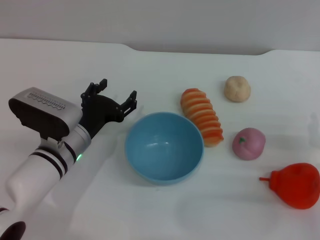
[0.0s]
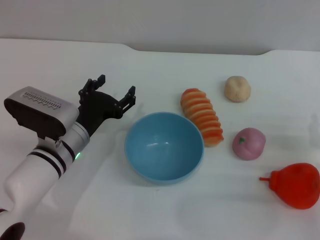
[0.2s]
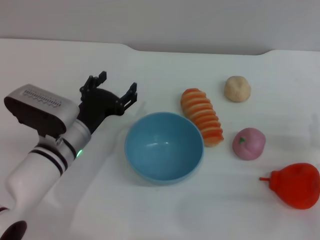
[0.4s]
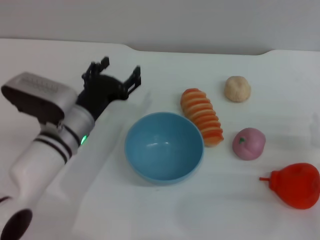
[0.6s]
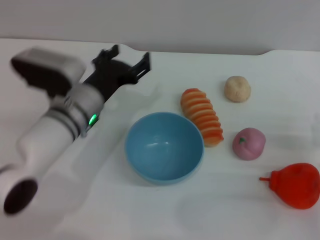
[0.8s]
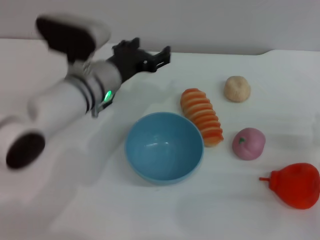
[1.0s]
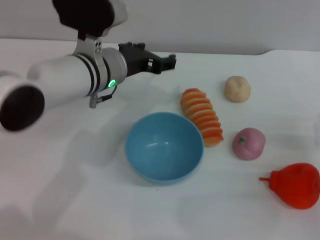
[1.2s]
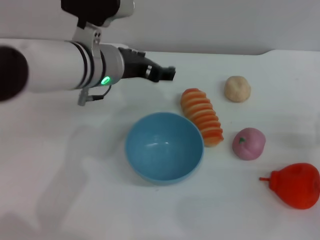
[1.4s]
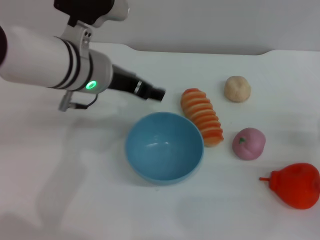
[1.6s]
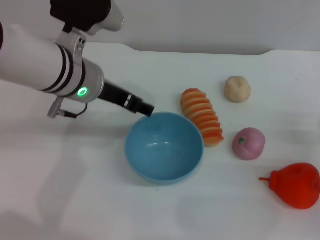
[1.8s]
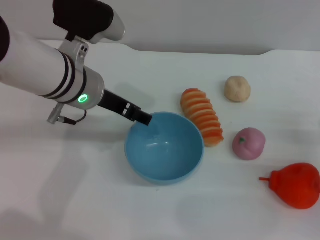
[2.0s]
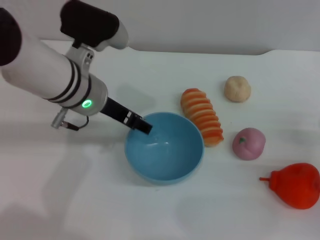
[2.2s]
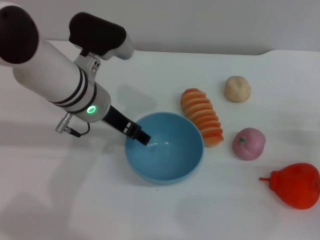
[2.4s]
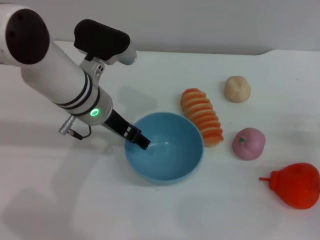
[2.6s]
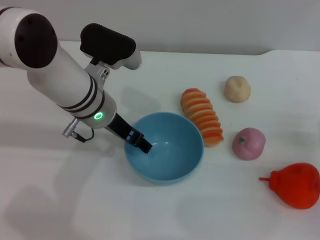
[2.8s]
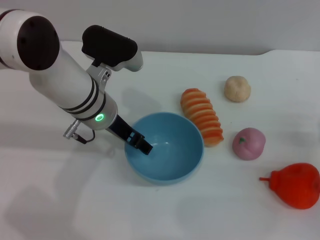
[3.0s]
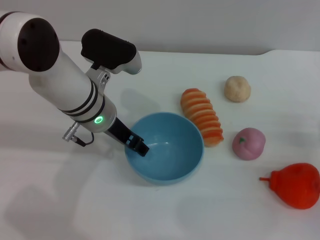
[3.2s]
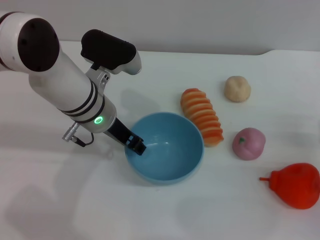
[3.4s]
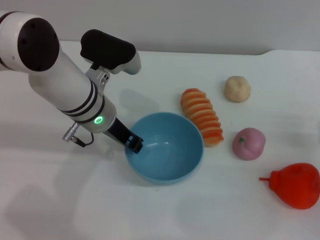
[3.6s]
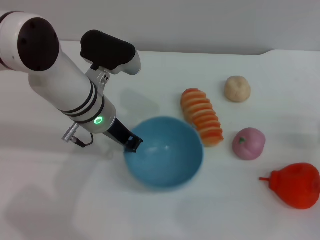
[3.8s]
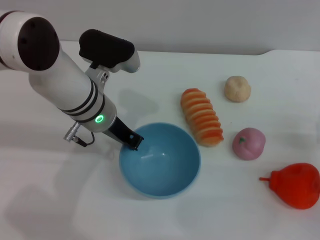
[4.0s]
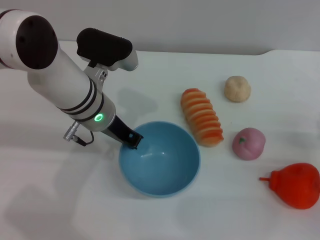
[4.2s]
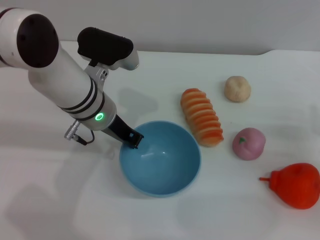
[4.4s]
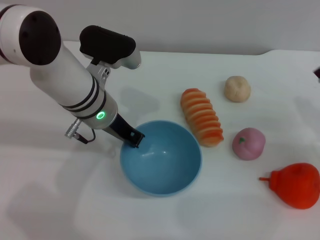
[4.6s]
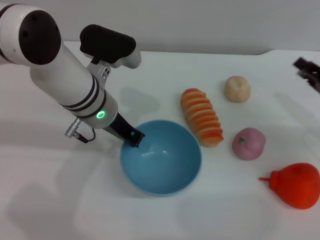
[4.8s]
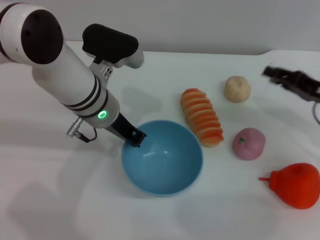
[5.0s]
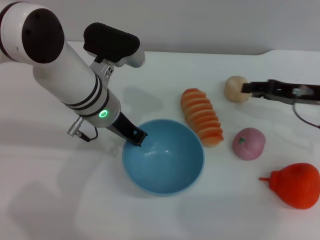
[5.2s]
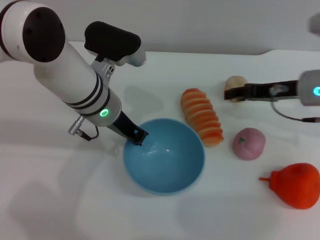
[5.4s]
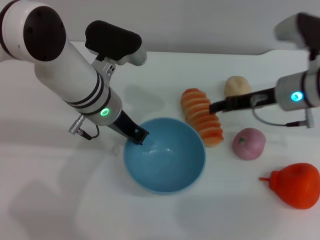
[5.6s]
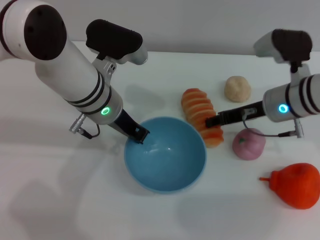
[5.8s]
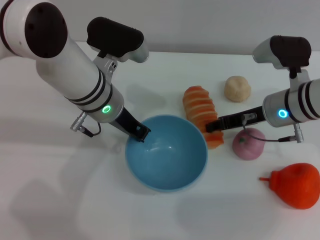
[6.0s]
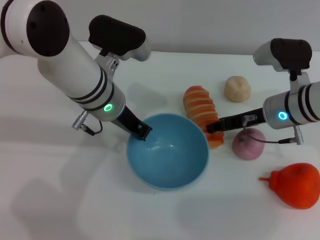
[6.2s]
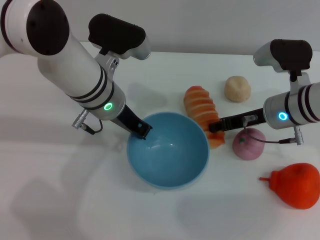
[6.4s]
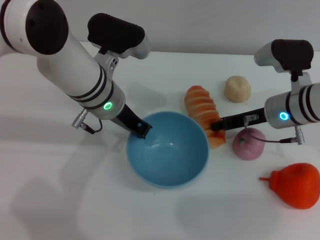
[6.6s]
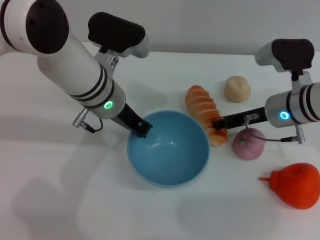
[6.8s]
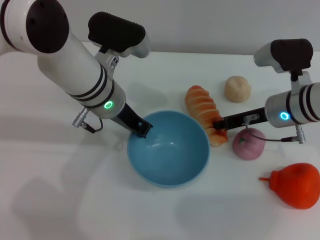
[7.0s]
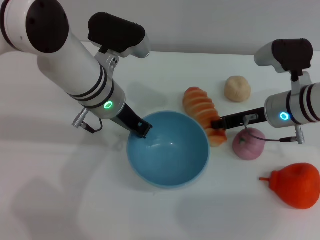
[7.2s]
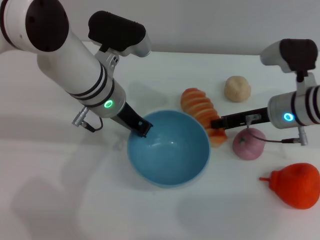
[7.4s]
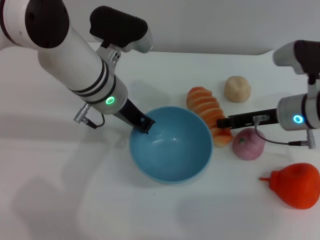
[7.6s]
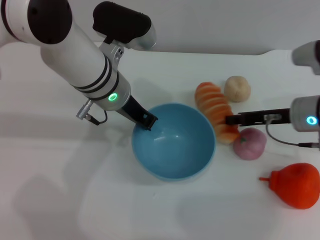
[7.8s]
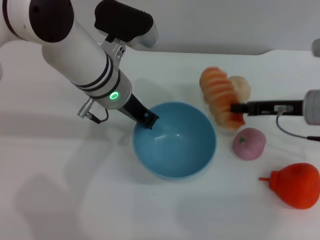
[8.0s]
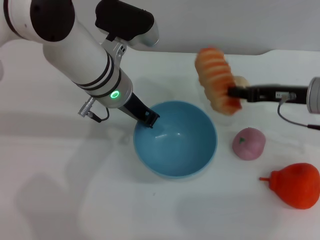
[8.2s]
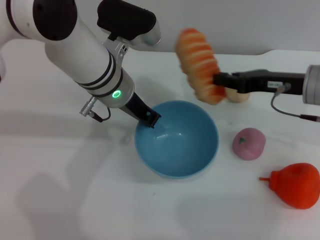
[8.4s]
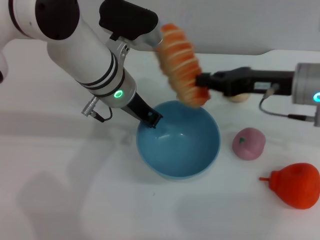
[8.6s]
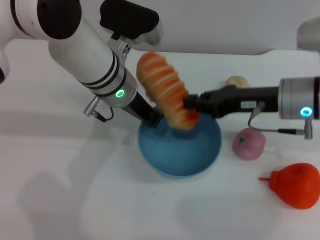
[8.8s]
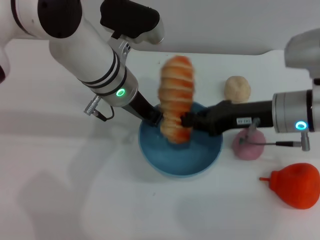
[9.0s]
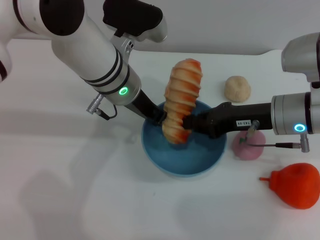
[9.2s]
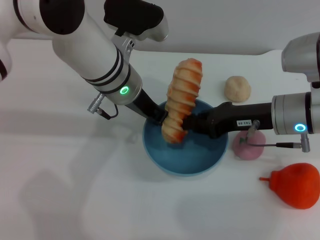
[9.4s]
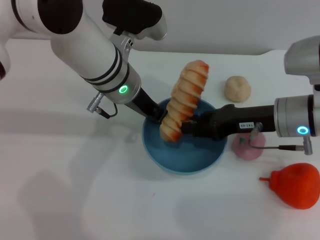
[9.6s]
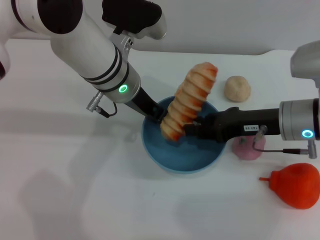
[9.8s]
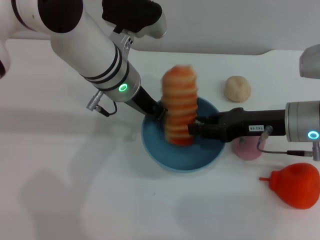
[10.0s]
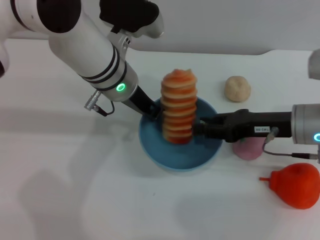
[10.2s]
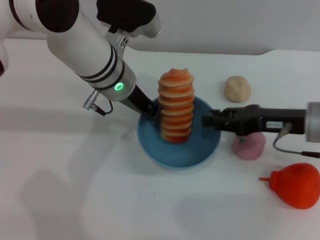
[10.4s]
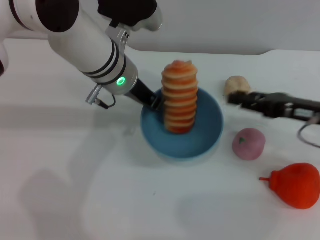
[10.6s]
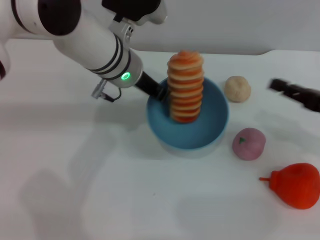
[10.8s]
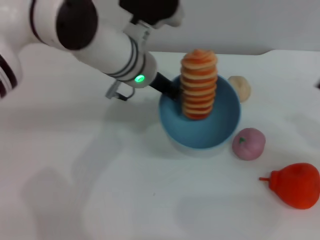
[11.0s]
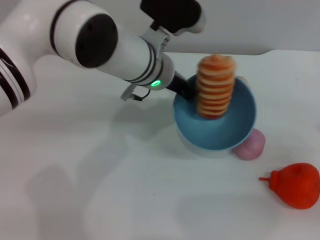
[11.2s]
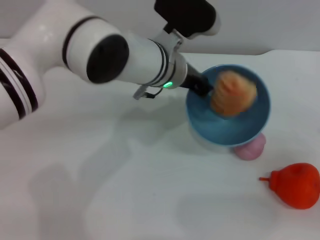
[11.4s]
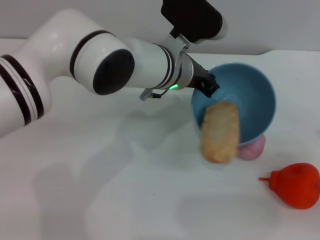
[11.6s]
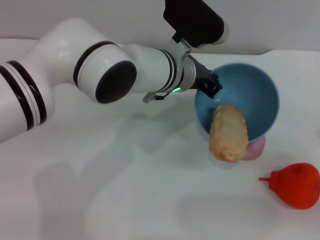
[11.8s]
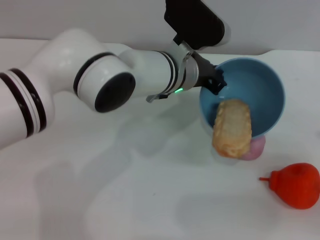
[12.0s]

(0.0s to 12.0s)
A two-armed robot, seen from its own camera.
Task of the whole recording: put the bread into the blue bowl and pour it out repeatedly.
Step, 0.0s - 6.0s: Pick up the bowl with the left gripper.
Step, 6.2s - 7.8s: Pick up the bread with the right gripper.
Step, 8.0s - 10.4s: Place the bread into the bowl.
0.0s - 1.6s: The left gripper goes approximately 15 cm upward.
1.6s - 3.0s: The left gripper moves downward, some 5 cm.
3.0s - 4.4s: The left gripper closes its fingers.
4.4s - 6.0s: The right gripper moves to the left, forward and upward, about 20 cm.
6.0s - 7.6s: The right gripper closes its fingers.
7.6s - 9.0s: The right gripper changes place by about 5 cm.
9.0s - 10.4s: The right gripper opens.
10.4s - 12.0s: The left gripper travels to the right by roughly 10 cm, while the right gripper goes approximately 20 cm to the right and backward.

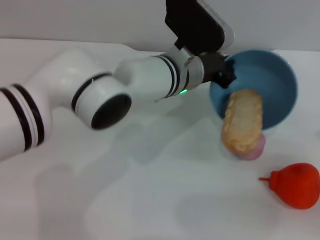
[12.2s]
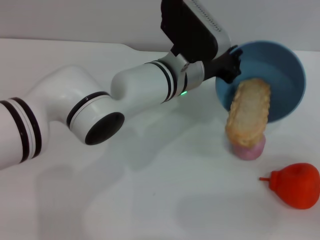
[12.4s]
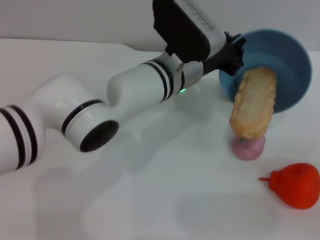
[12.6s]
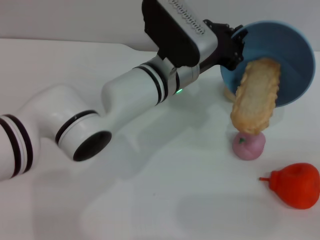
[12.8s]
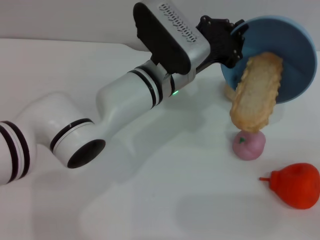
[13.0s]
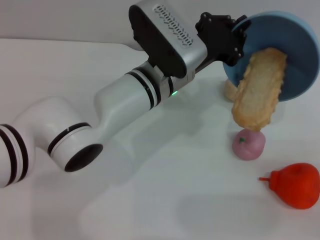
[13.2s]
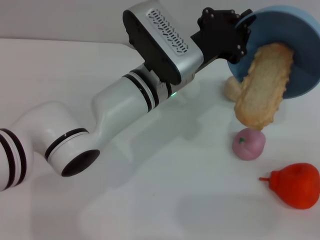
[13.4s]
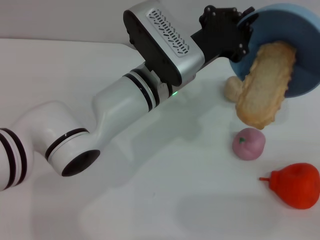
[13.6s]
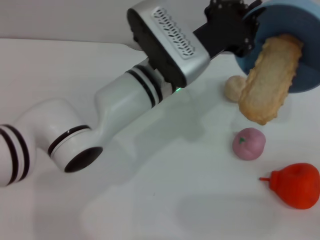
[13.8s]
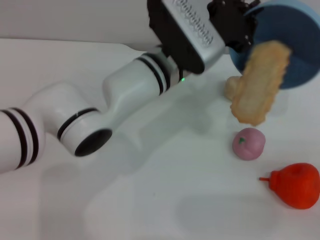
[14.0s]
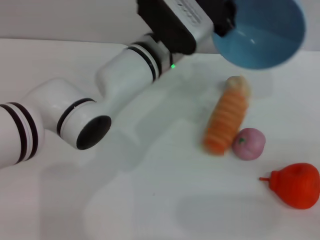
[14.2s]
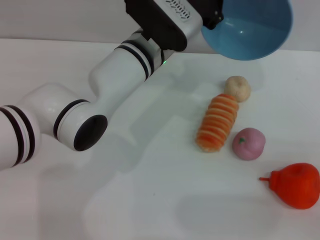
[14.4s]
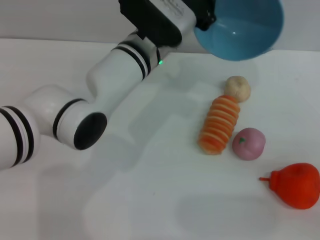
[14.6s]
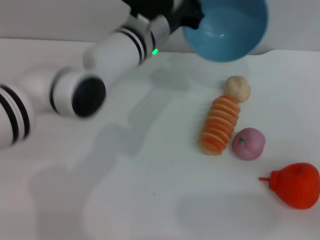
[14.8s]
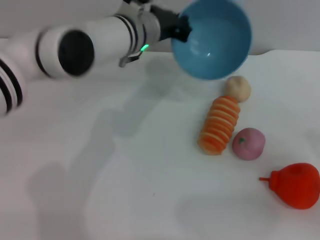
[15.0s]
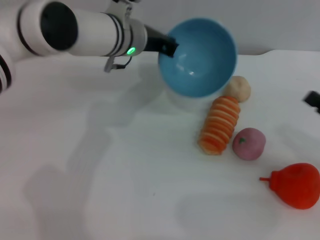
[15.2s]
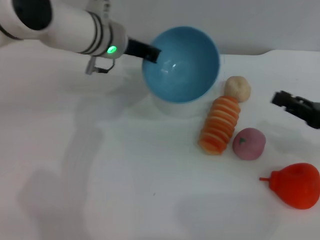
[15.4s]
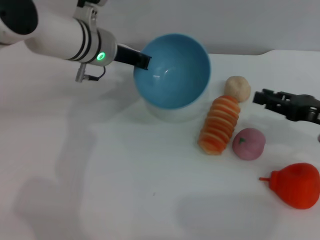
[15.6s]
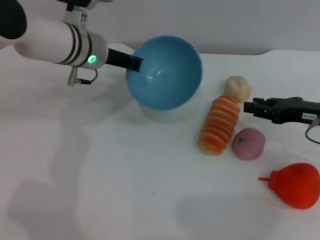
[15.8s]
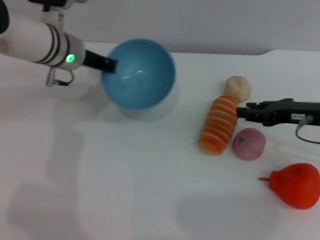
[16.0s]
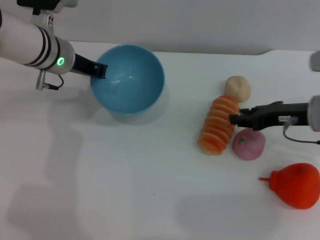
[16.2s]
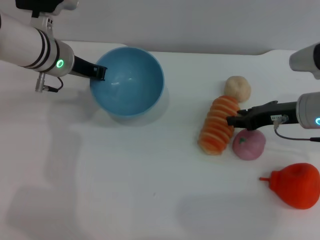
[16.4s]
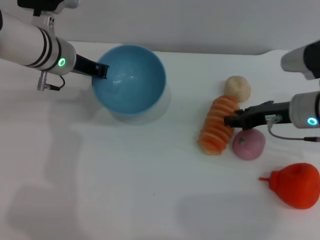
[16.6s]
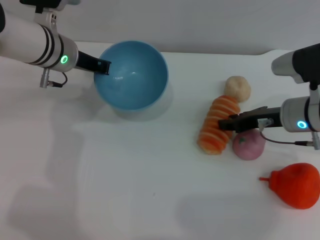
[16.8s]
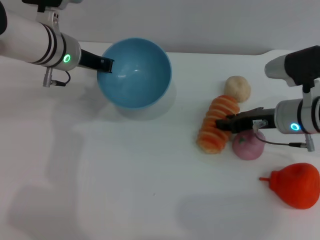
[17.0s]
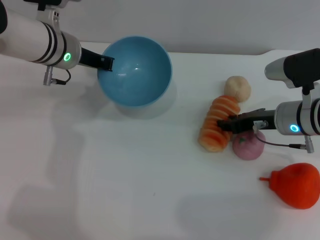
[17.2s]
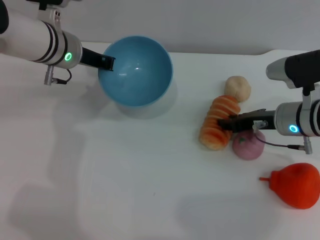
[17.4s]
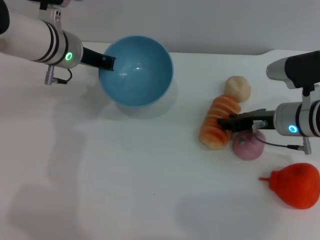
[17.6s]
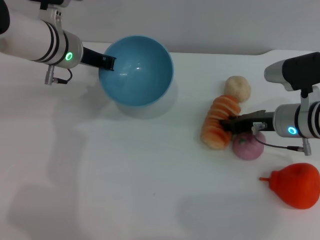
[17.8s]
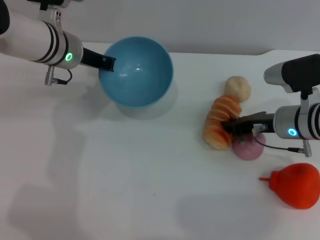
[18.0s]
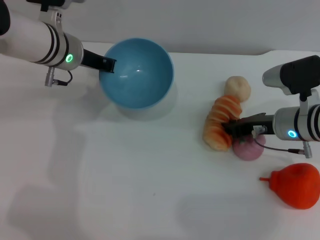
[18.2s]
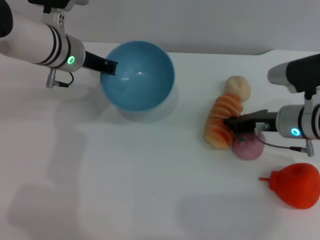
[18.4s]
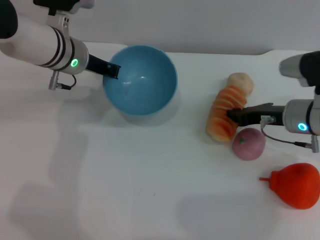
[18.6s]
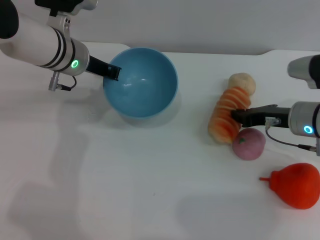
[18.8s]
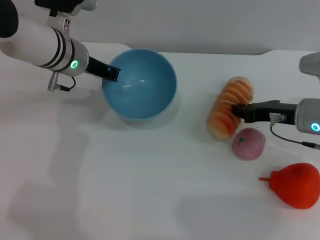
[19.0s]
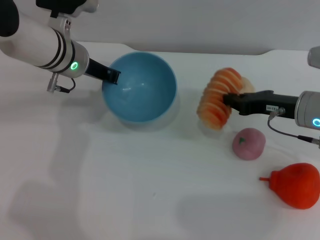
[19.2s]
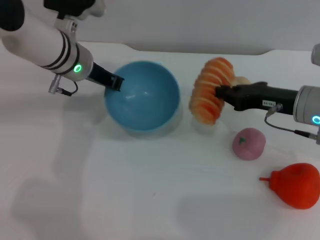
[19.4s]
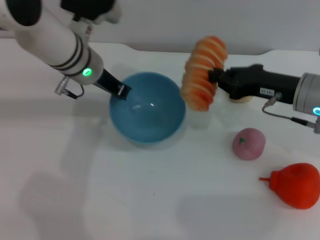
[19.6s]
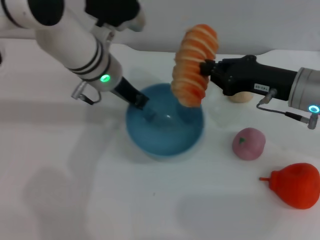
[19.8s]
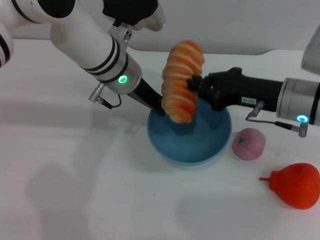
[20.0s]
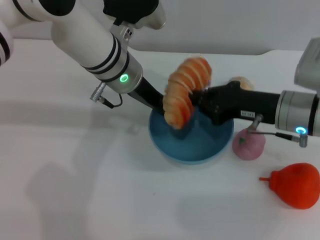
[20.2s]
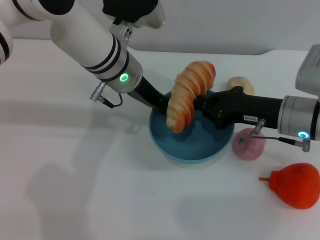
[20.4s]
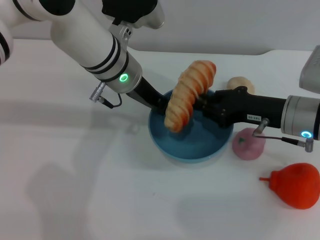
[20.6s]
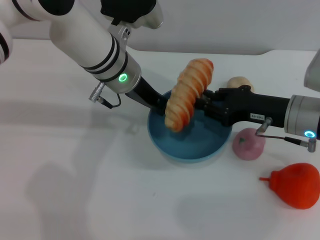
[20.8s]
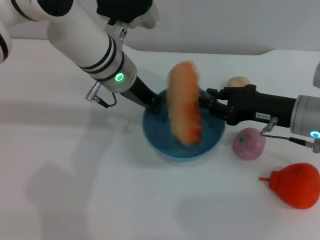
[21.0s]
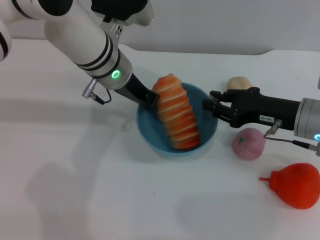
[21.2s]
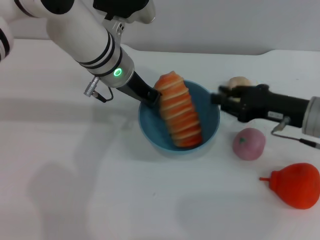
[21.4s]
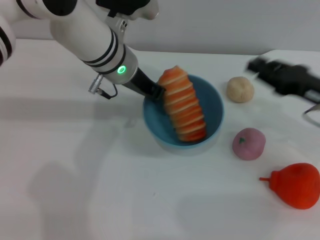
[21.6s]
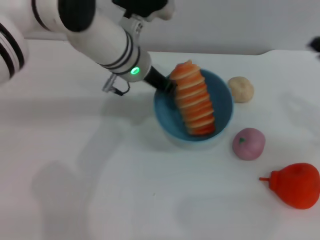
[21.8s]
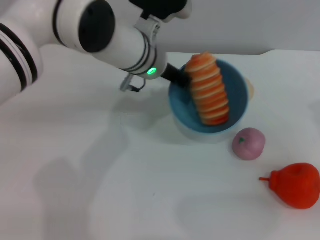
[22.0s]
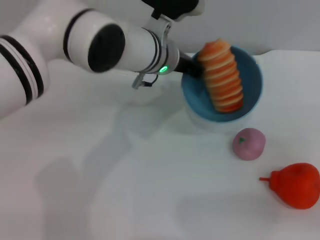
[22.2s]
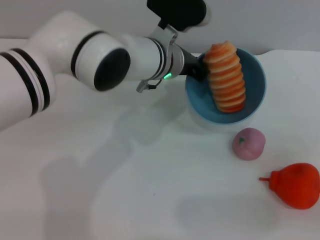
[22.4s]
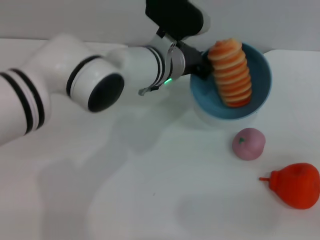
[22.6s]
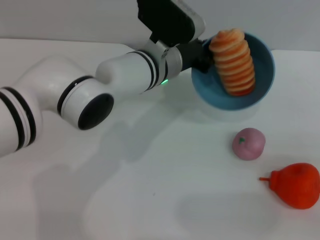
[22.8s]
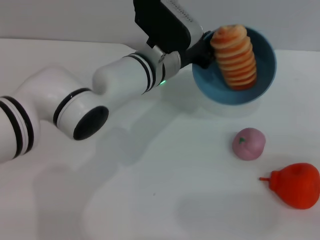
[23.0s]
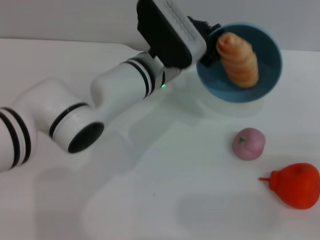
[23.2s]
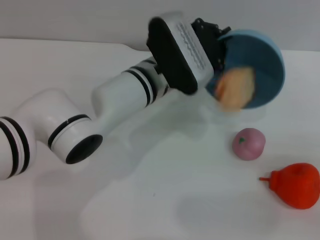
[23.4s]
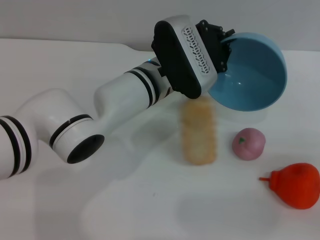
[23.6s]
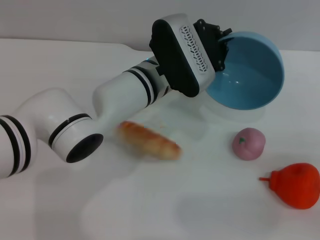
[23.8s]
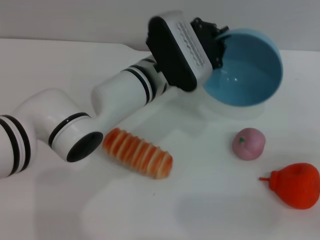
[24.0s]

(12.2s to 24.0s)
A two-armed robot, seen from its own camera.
Task of the whole recording: put the bread into the blue bowl and pour it out repeatedly.
Step, 12.2s - 14.4s: Pour the bread out of the bowl.
Step, 14.6s - 19.4s: Pick up the bread with the right gripper.
Step, 19.6s - 21.6s: Place the bread into the bowl.
13.6s - 15.2s: The right gripper moves forward, about 5 cm; the left gripper travels forward and to the left by approximately 10 cm.
15.2s - 16.6s: The right gripper is displaced forward and to the left by roughly 15 cm. Meanwhile the left gripper moves to the left, some 10 cm.
16.6s - 18.2s: The grippers make only small movements.
18.2s - 19.6s: The right gripper goes about 5 cm upward, and closes its fingers.
19.6s - 21.0s: The right gripper opens up. The left gripper changes place by roughly 5 cm.
21.0s - 22.6s: The left gripper travels to the right by roughly 5 cm. The right gripper moves to the right and backward, approximately 20 cm.
